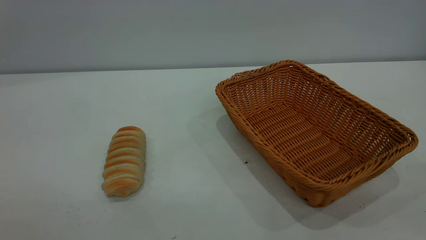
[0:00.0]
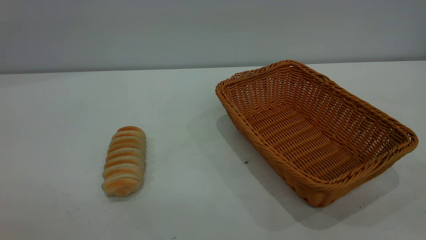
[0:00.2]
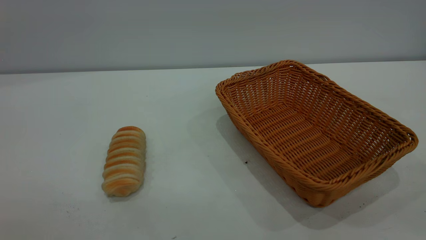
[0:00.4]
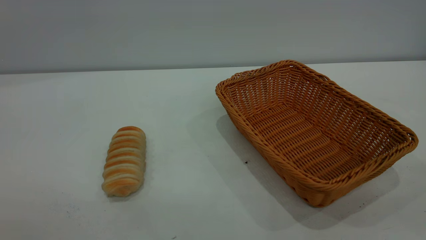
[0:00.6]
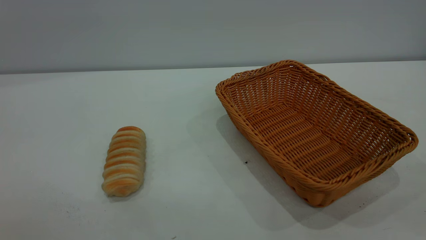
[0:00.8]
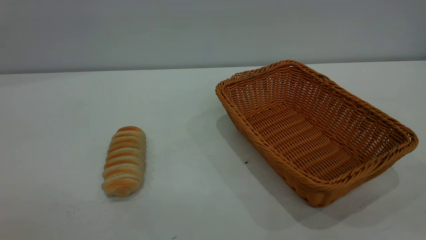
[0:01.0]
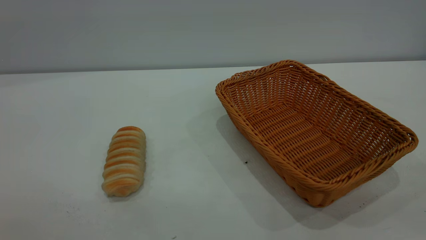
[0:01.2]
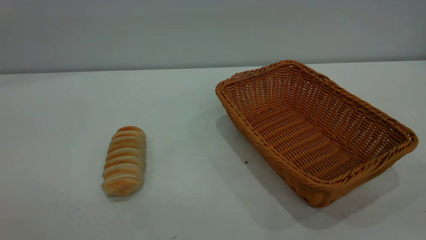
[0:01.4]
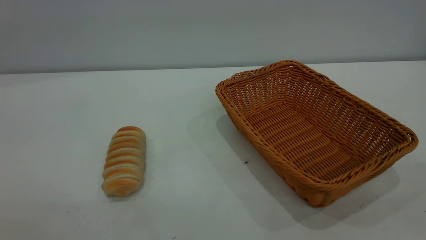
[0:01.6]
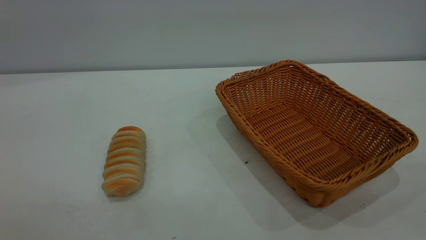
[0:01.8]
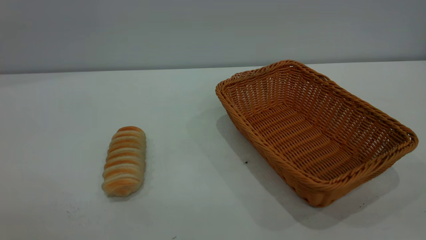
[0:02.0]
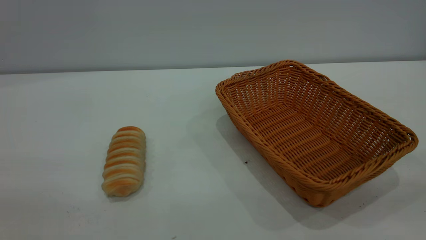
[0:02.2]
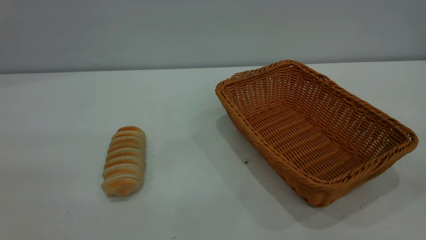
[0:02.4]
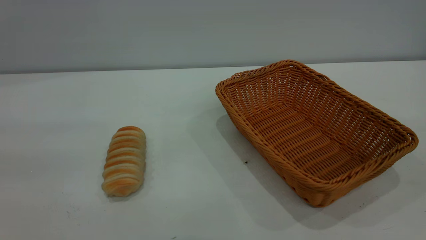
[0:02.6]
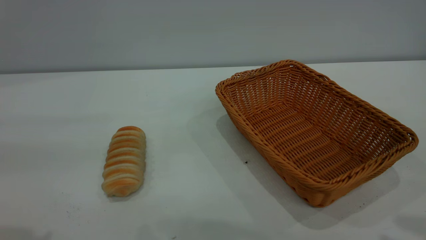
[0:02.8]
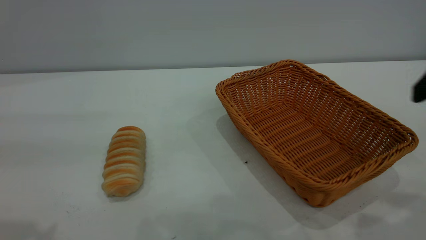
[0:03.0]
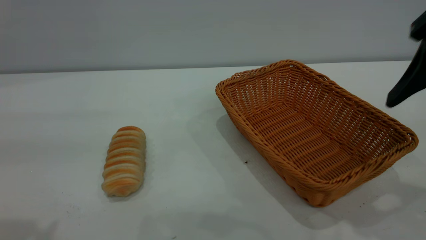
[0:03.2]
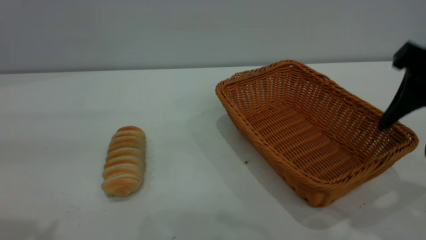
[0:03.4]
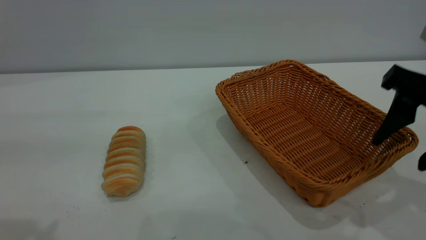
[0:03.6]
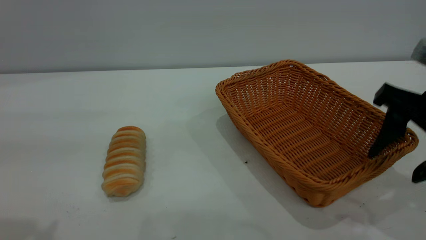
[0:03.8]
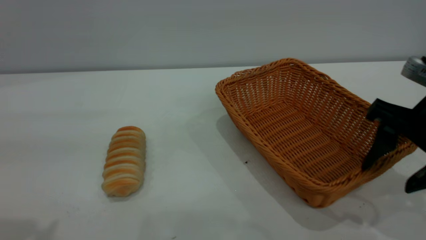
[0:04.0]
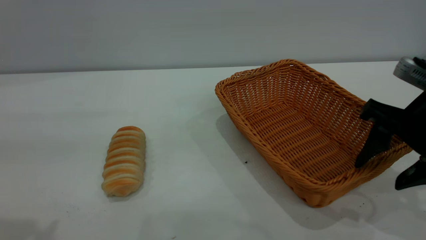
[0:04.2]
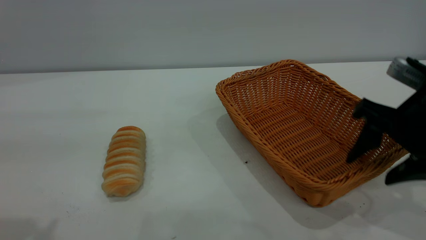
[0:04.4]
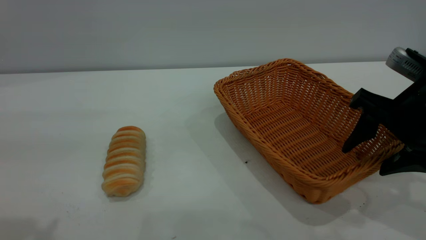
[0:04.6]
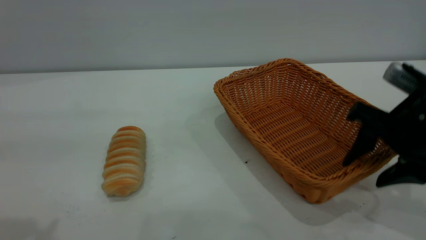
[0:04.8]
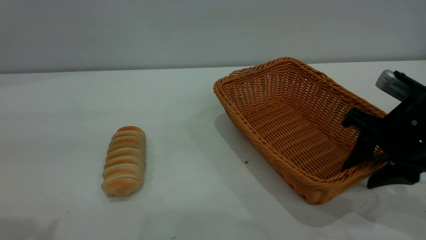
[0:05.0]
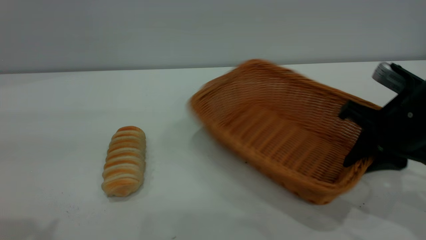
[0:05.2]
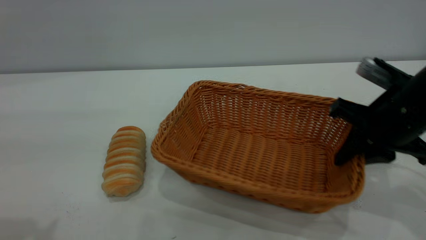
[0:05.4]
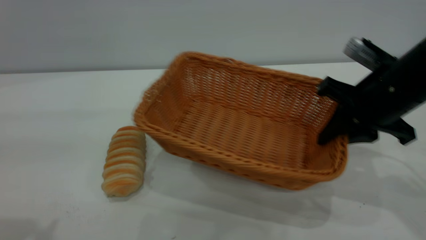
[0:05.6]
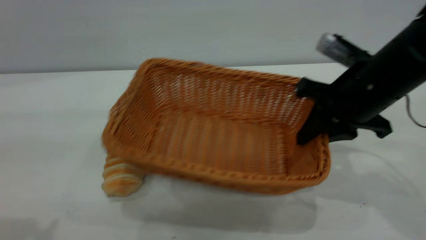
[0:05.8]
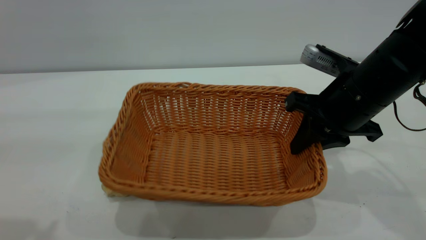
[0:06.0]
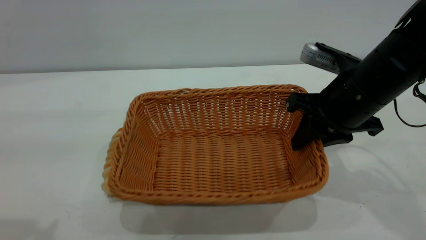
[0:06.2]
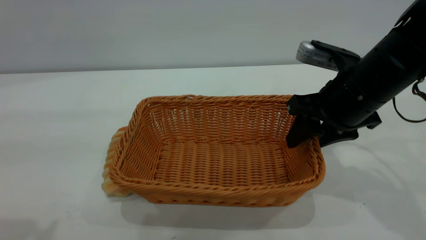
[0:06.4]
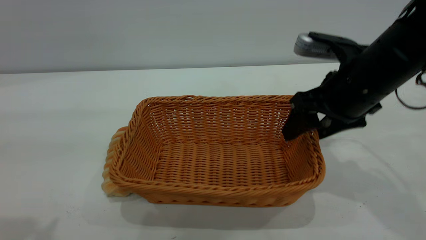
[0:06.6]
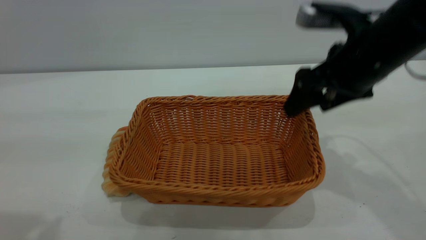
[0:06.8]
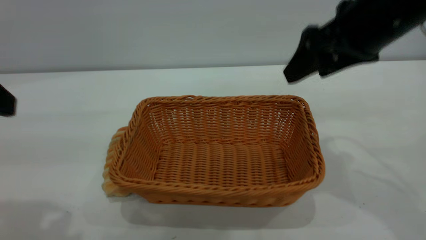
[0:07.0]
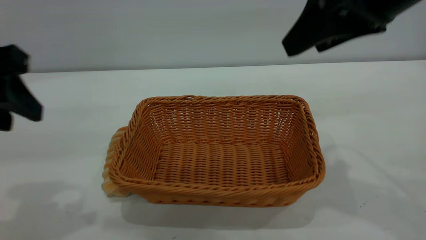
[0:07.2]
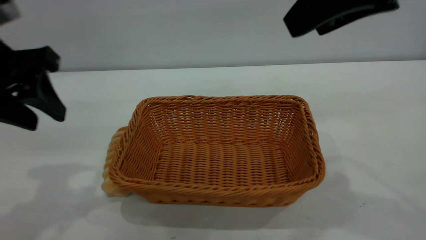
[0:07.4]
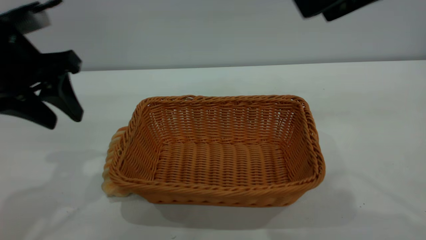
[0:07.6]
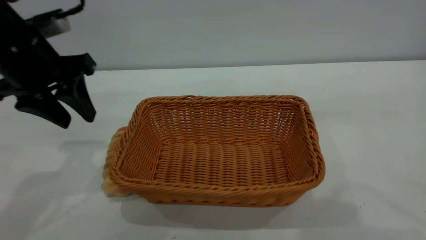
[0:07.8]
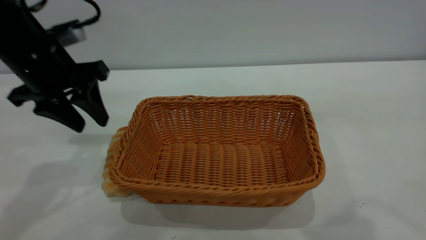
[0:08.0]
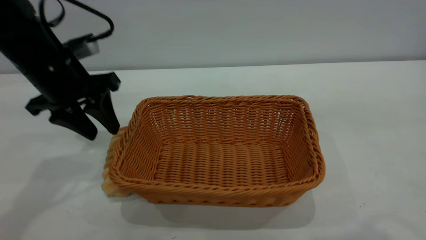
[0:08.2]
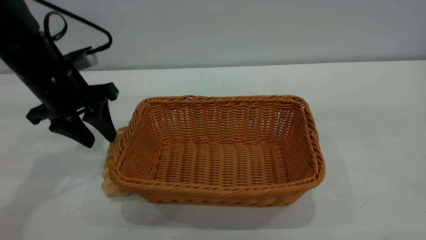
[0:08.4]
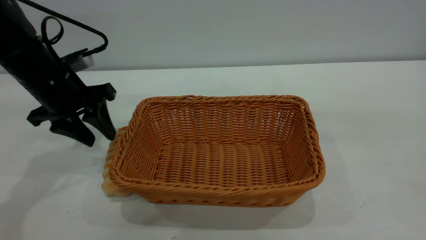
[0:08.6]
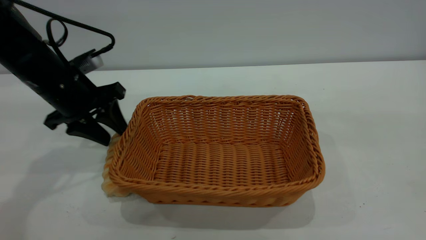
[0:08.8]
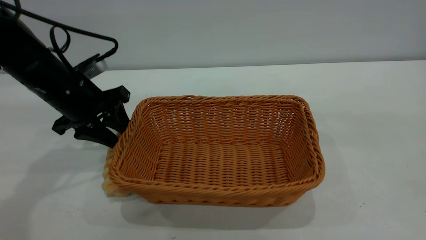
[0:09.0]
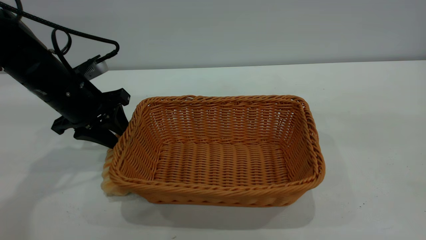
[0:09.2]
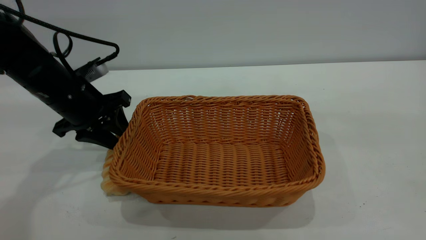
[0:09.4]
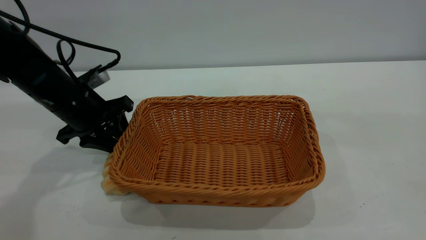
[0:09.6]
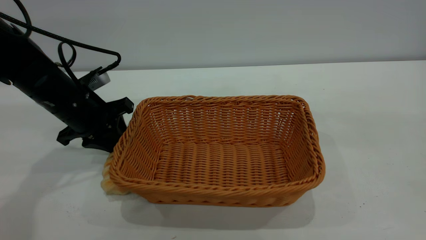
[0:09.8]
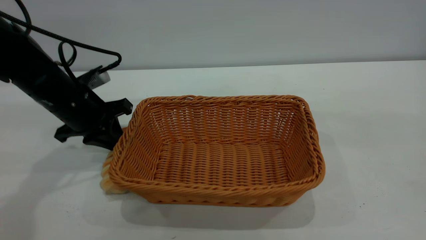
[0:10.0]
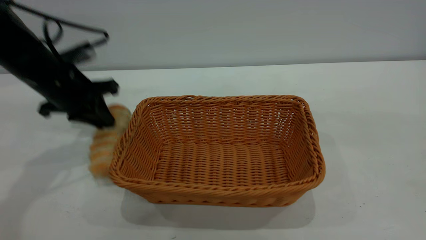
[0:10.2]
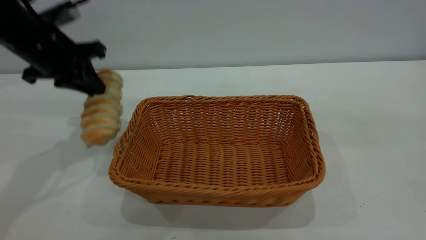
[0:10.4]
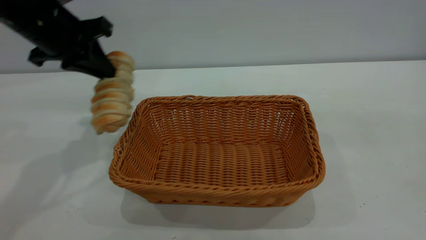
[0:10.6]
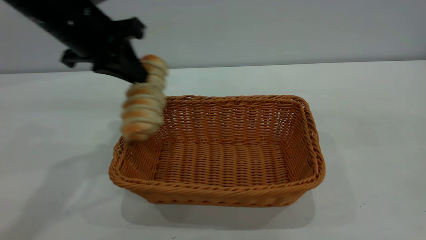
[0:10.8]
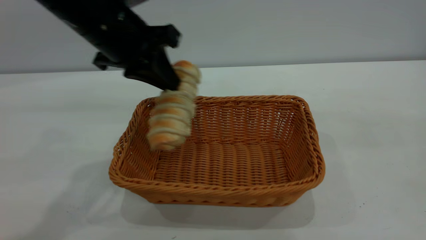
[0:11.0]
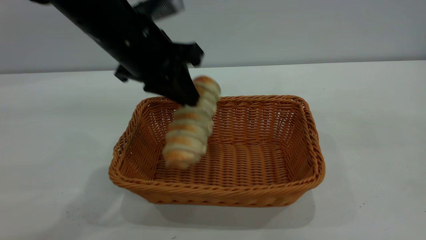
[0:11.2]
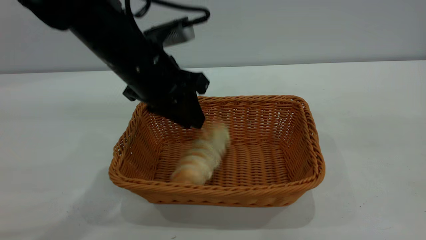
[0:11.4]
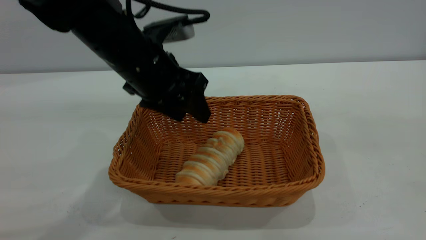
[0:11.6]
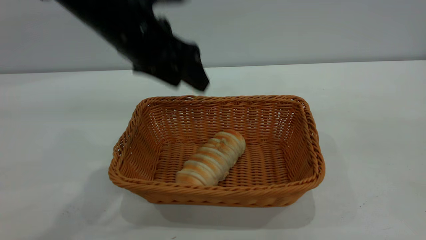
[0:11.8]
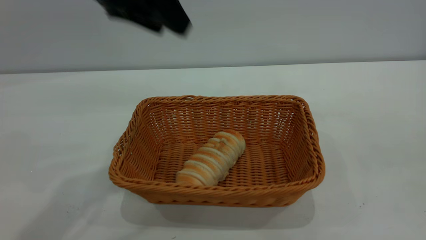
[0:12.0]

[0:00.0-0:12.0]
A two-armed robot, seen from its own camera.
Task of the whole recording: One hand grasps the yellow basket and places it in the middle of the table, while the other hand picks up the long bread and puts it into the yellow basket.
Step, 0:00.0 to 0:07.0: Move the basket to the center of view.
Step, 0:10.4 to 0:11.6: place the bread into the basket.
0:03.0 to 0:04.4: The right gripper travels downward and forward by about 15 cm.
0:04.4 to 0:06.0: The right gripper goes some 10 cm to the left and forward, and closes up.
0:06.0 to 0:07.6: The left gripper goes approximately 15 cm forward and downward, while the right gripper moves upward and backward, roughly 25 cm, and opens its fingers.
0:07.6 to 0:09.0: The right gripper shifts about 15 cm backward and upward. Meanwhile the left gripper heads downward and forward, covering about 15 cm.
0:09.0 to 0:10.4: The left gripper goes some 10 cm upward, and closes its fingers.
0:10.4 to 0:12.0: The right gripper moves about 5 cm, while the left gripper goes some 15 cm upward, to the right and backward, and opens up.
